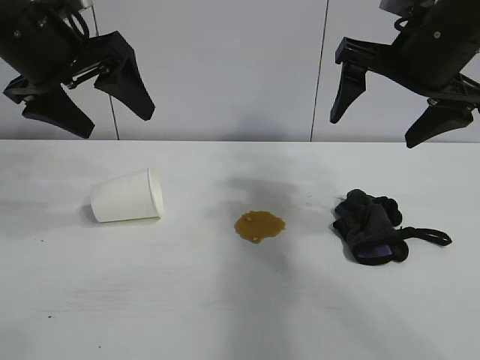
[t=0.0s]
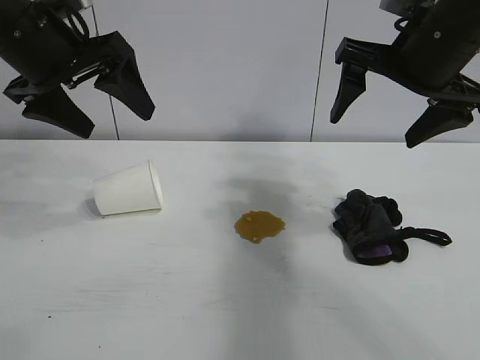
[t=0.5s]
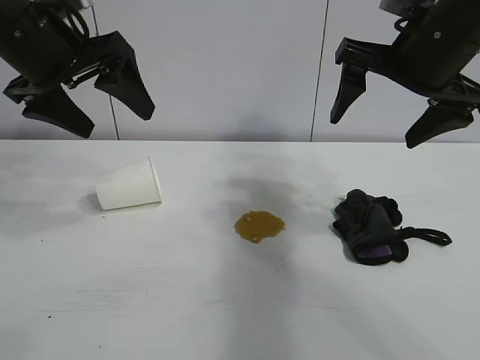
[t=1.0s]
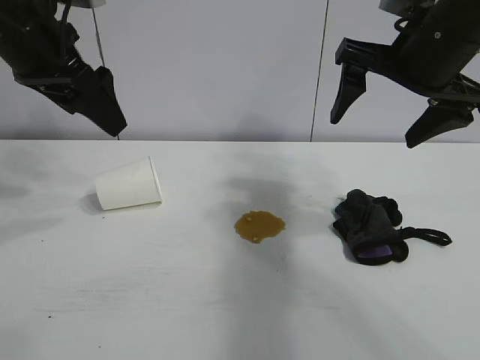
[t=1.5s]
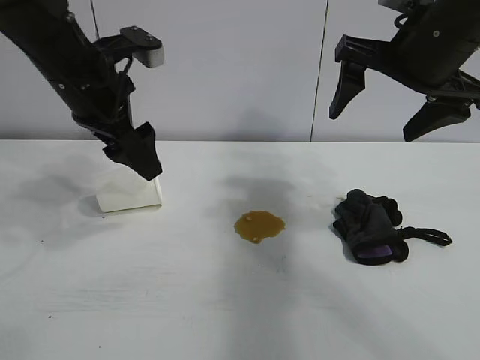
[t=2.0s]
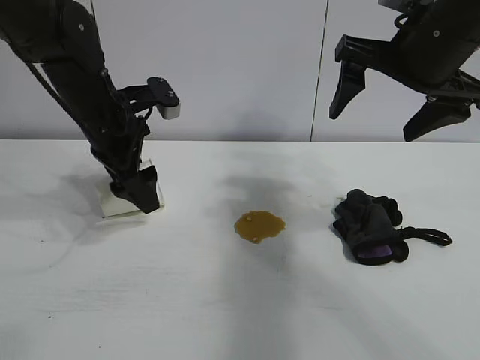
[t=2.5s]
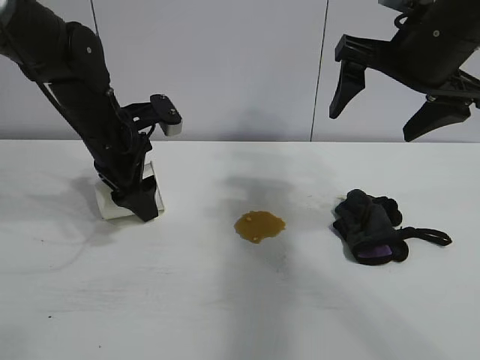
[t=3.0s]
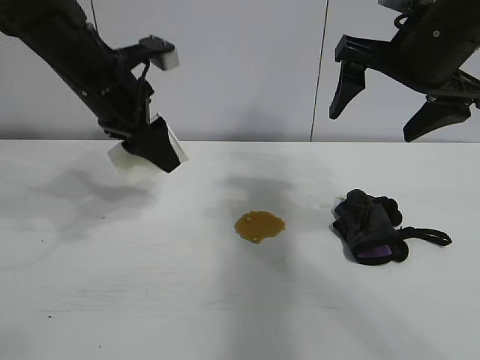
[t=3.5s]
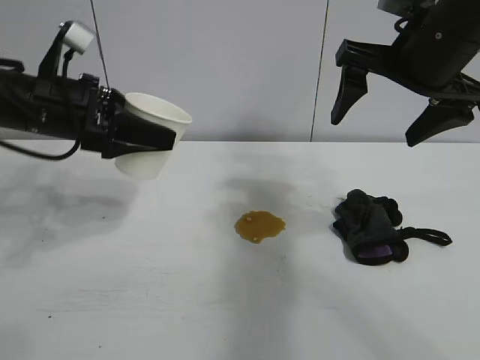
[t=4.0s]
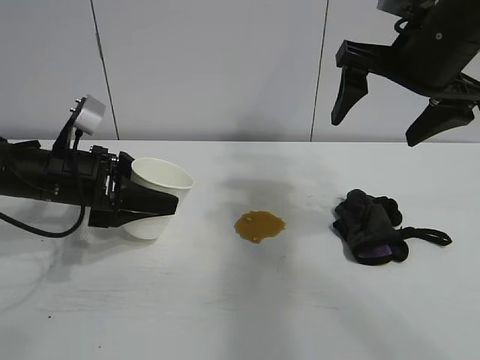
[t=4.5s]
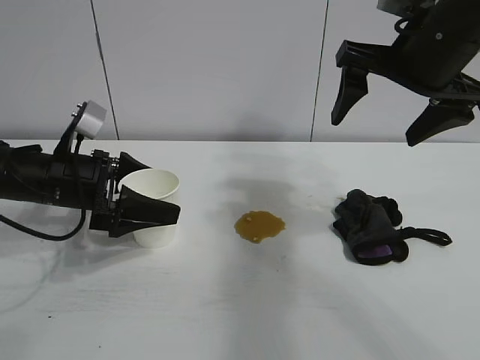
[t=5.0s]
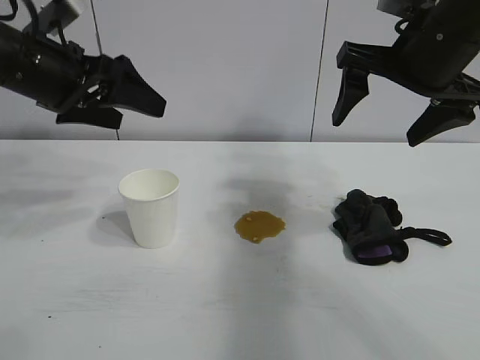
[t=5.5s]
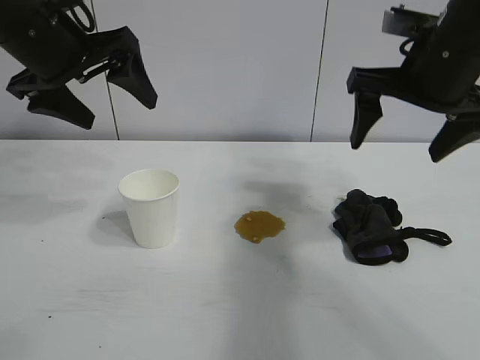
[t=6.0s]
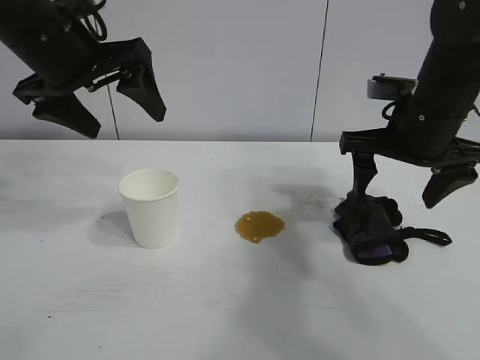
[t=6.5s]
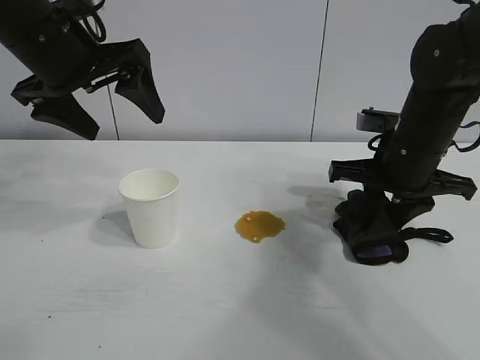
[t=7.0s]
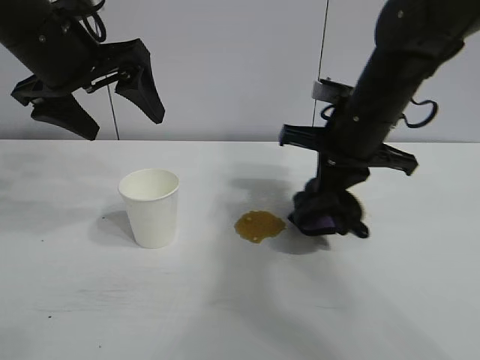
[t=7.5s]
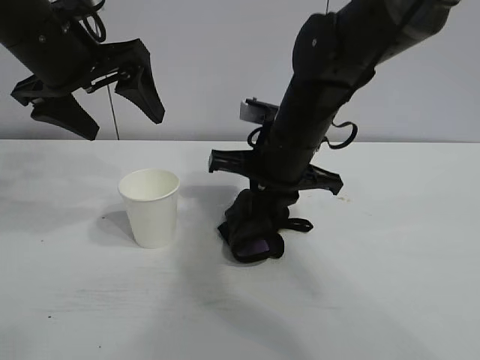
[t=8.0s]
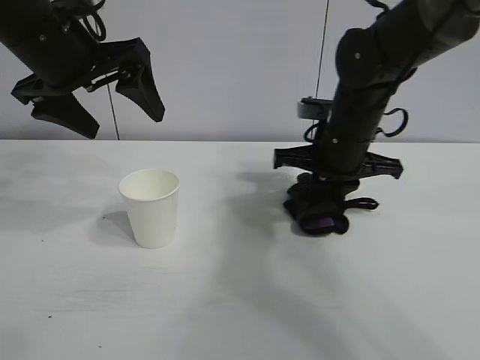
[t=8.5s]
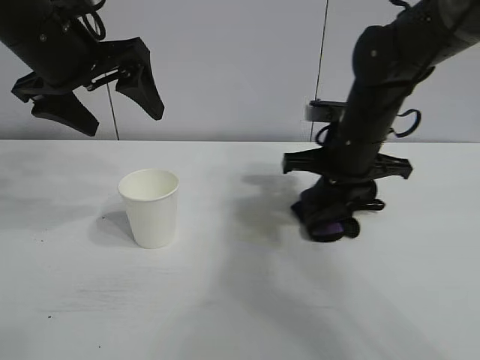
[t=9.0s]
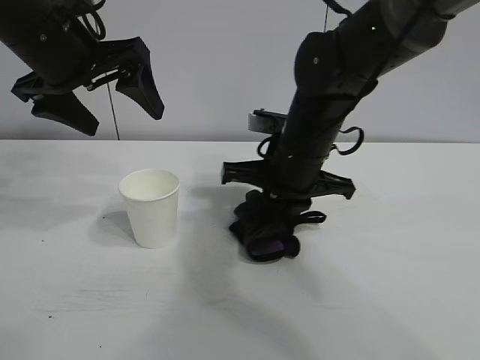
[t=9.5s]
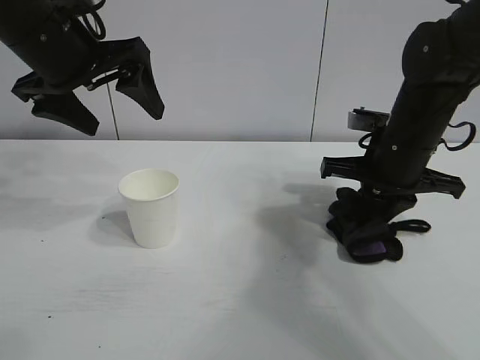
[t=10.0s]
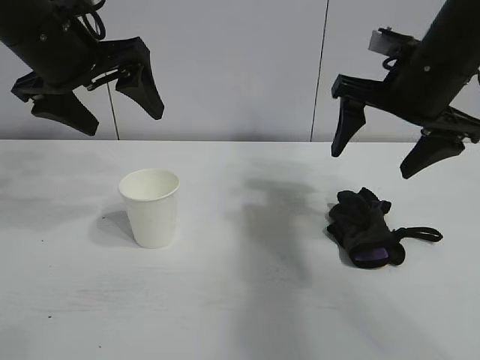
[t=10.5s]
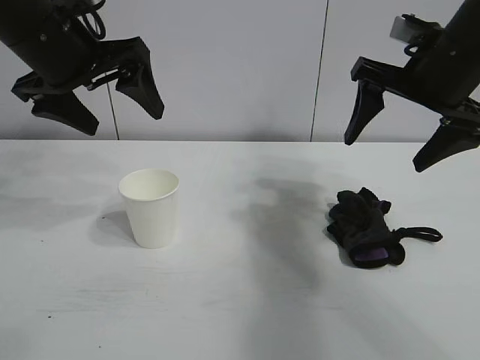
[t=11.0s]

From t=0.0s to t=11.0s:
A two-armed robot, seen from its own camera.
Task of the whole recording: the left gripper pick up the fallen cup and place it upright, the right gripper grasp the black rag and wipe the stain on the table, the right gripper put the black rag back in its original position.
Step, from t=1.5s to t=3.0s: Grasp the paper cup with left gripper.
Step, from t=3.5s to t=5.0s: Stand the paper cup upright with left gripper.
Step, from t=5.5s to t=7.0s: Grasp the rag with right gripper.
Step, from t=7.5s to t=10.0s: Wipe the stains off the table with the rag with right gripper.
